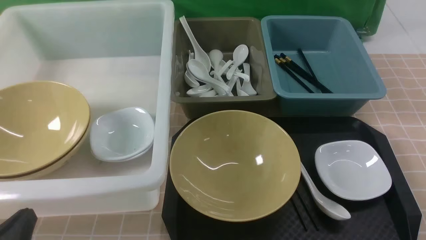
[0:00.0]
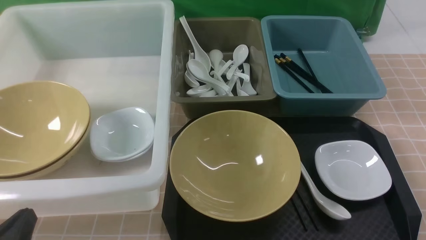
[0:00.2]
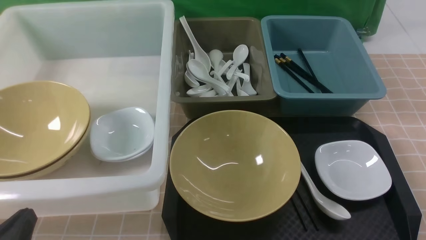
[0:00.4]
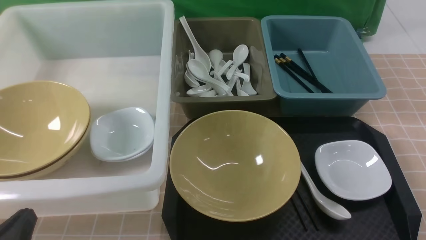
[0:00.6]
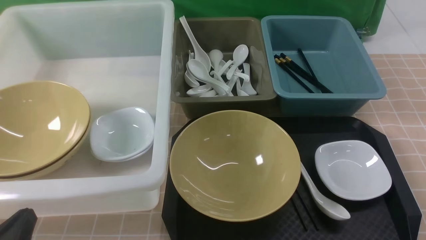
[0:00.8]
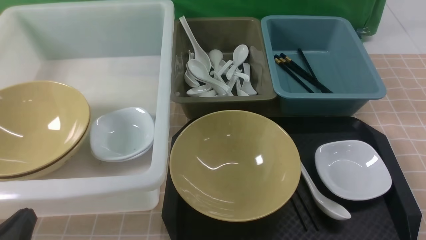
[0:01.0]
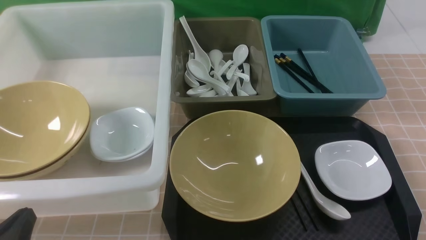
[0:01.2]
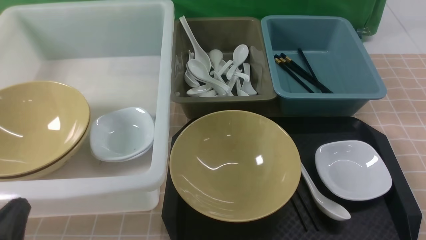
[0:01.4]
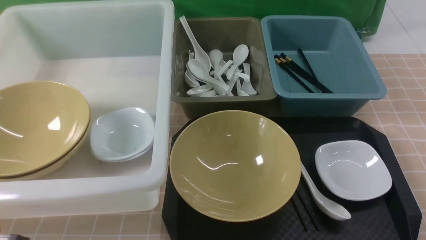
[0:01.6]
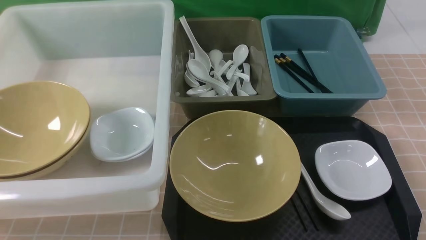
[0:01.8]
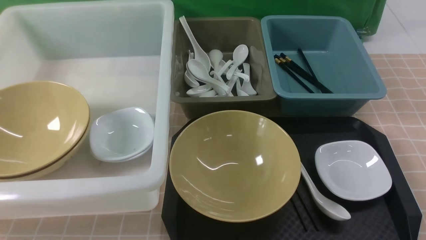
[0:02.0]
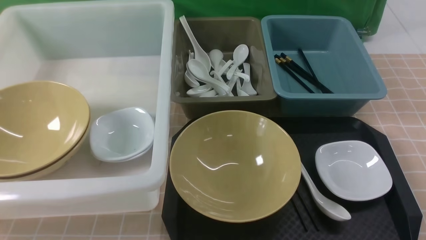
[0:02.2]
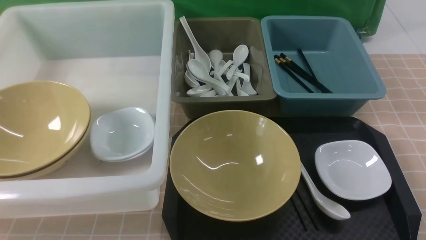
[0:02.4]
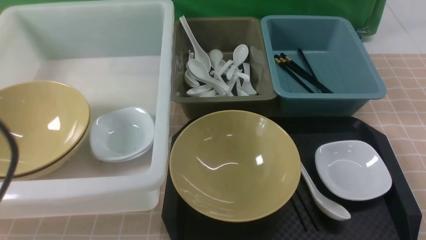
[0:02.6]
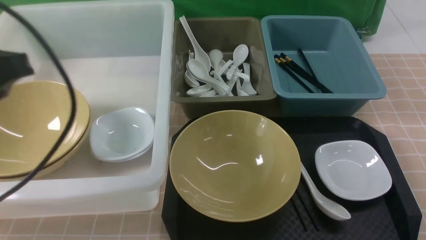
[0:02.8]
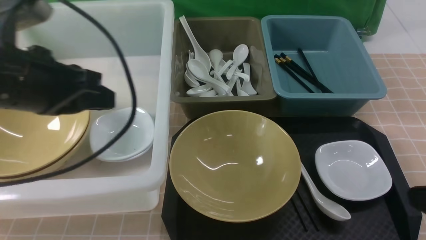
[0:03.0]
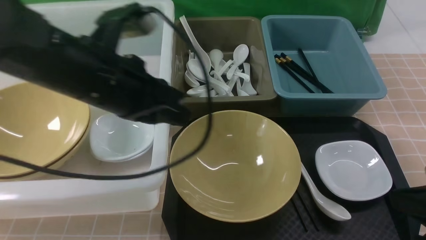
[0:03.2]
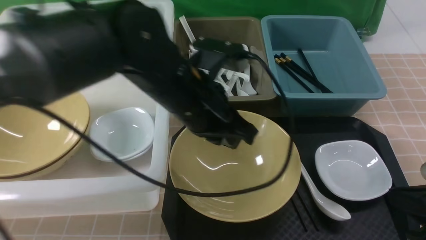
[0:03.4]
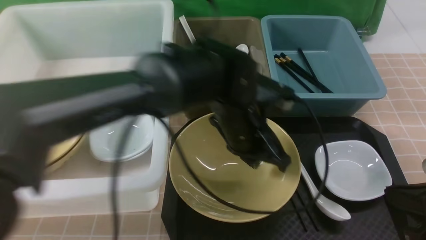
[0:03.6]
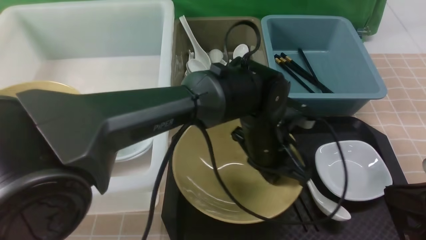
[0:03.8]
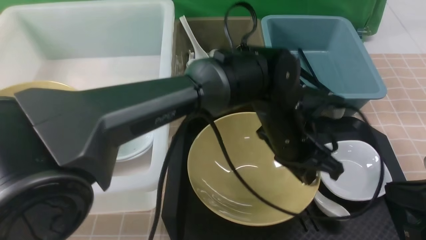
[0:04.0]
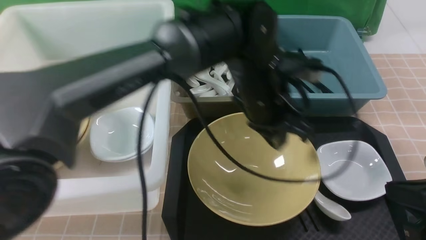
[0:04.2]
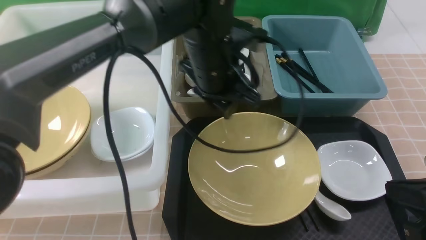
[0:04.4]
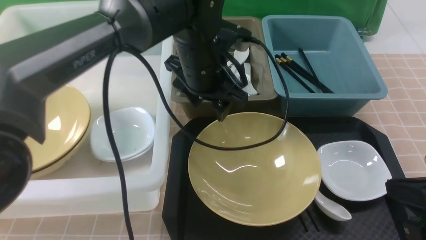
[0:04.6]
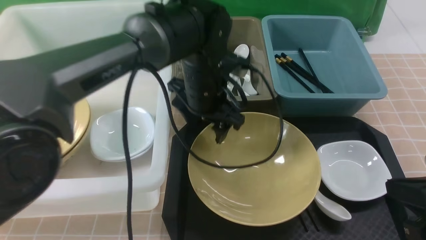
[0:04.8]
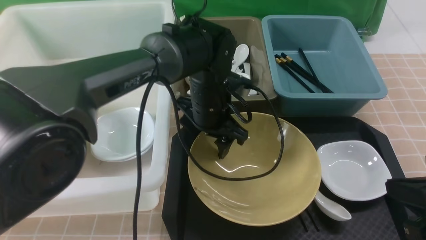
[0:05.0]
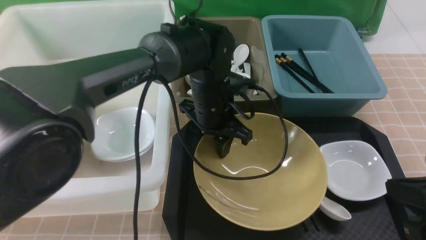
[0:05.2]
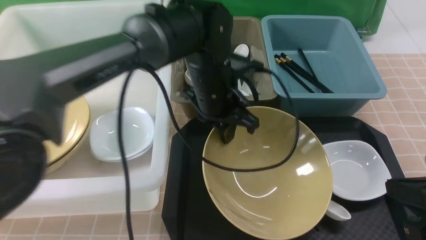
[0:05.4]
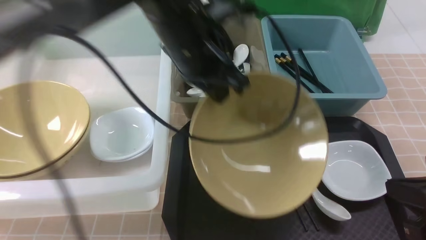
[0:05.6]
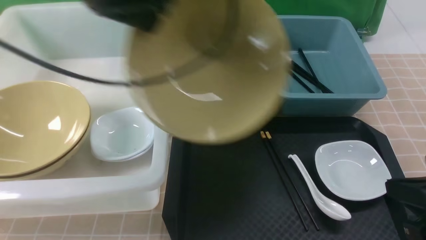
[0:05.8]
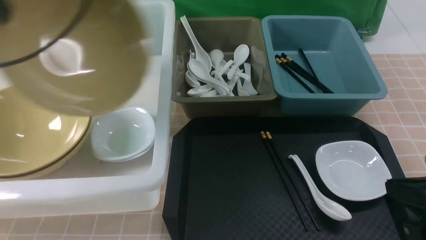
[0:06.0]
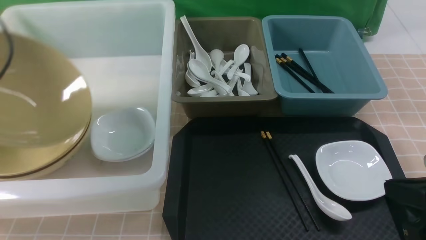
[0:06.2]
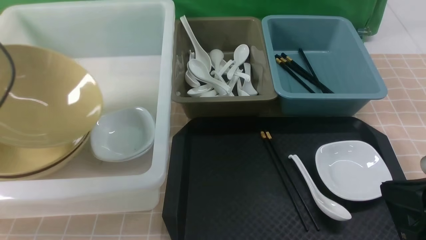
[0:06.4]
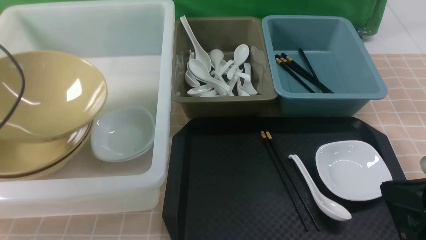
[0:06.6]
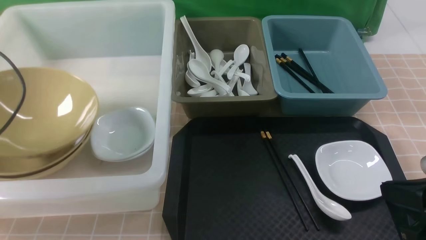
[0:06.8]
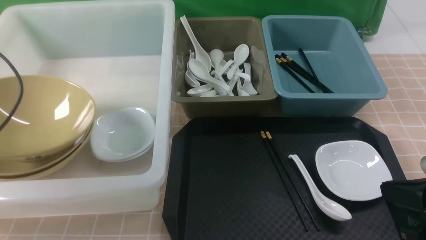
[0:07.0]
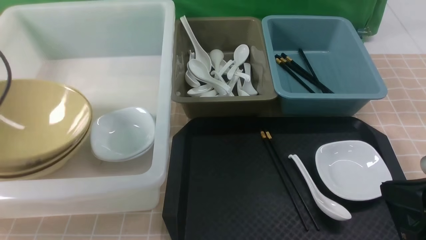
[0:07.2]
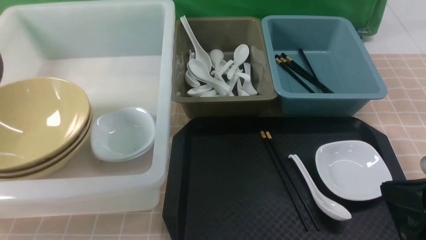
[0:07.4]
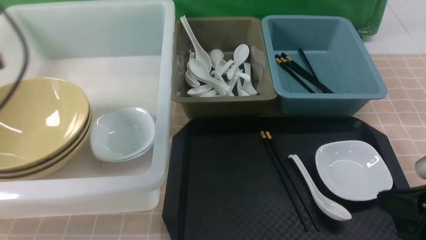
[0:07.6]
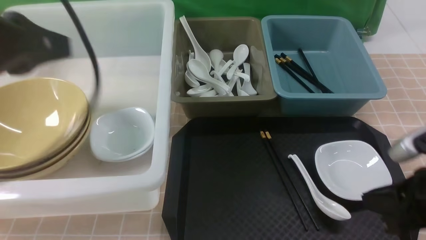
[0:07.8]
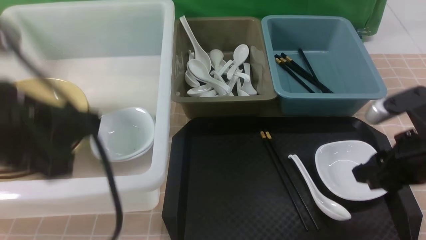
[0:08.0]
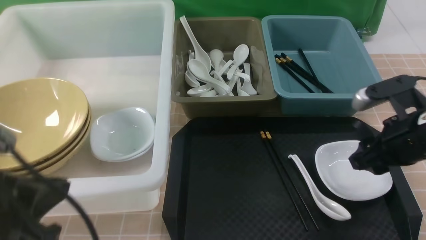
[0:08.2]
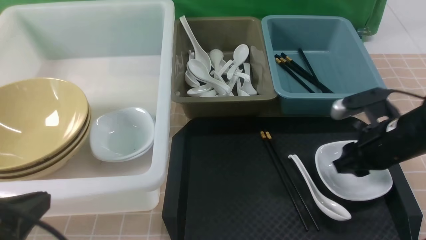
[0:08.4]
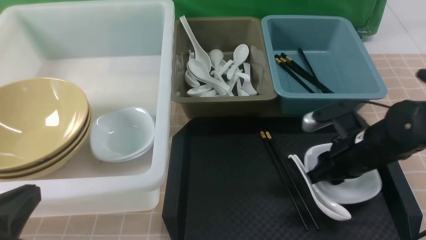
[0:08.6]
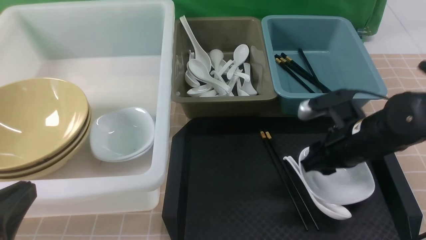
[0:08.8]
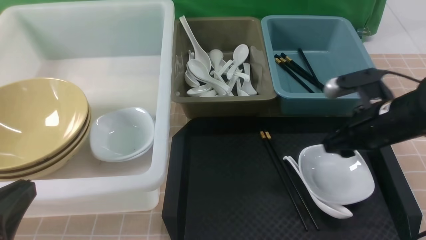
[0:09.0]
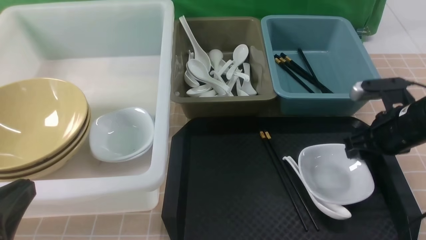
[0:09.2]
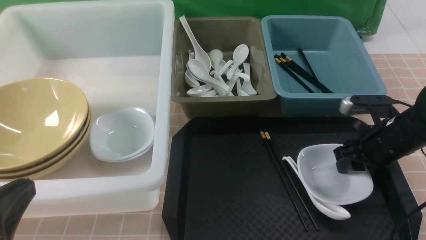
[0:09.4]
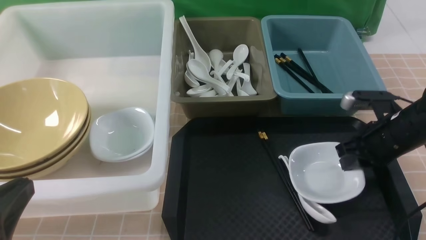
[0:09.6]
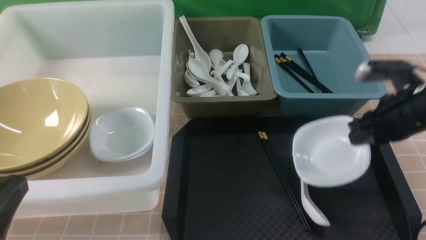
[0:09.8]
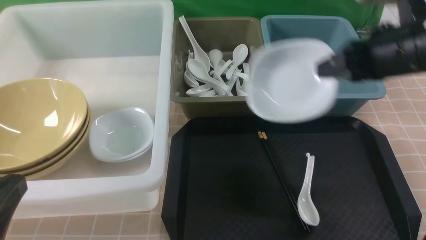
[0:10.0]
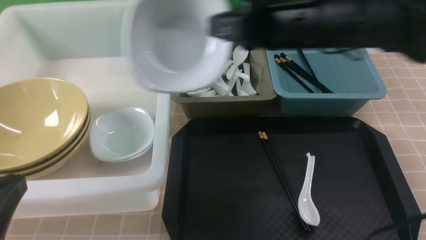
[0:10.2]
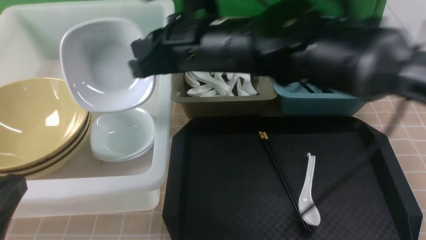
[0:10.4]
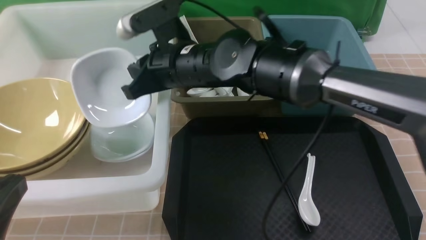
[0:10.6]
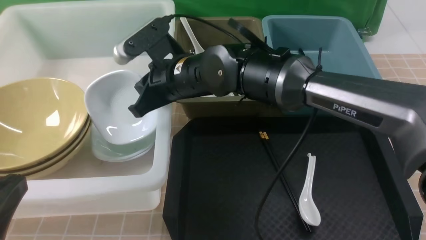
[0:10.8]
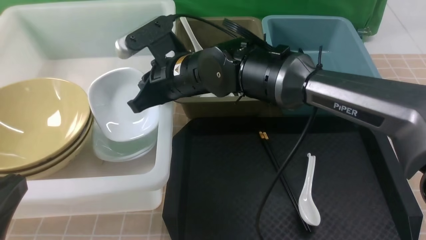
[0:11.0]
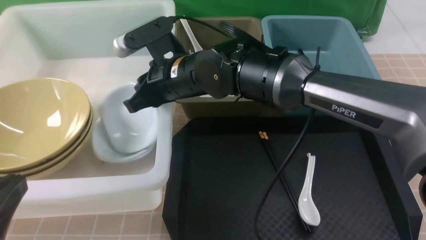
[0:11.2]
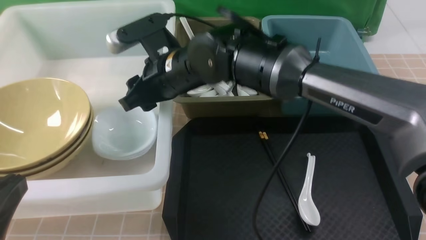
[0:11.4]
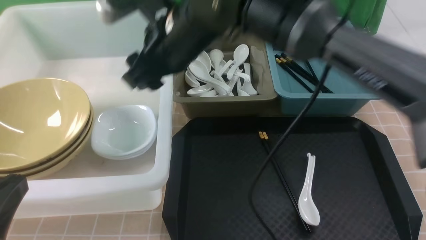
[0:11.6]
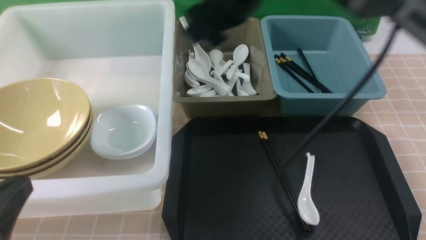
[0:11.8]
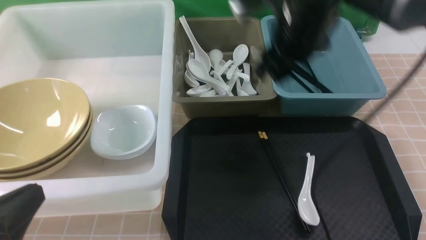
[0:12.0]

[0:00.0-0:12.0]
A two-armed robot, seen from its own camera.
Task of the whole recording: on brown table put chopsticks spoon bowls plates into blue grey white boxes.
Step, 0.0 to 5.6 s: use the left arm to grab the yellow noodle bowl on the left.
Step, 5.8 to 7.6 s: use the left arm to put the noodle bowl into the large storage box on the left.
Step, 7.8 to 9.8 s: use the right arm to grab the plate.
Step, 10.0 to 11.6 s: use the right arm to put the plate into the large storage box on the left.
1.6 to 3.0 s: The right gripper shifts about 10 cm upward and forward, and closes its fingers; the left gripper shifts approximately 20 cm forward and upward.
3.0 to 4.4 s: The left gripper shifts some 20 cm to the right and forward, and opens.
4.4 to 6.0 s: The left gripper goes roughly 30 cm to the left and upward, and closes its fingers.
6.0 to 7.6 s: The left gripper goes some 5 cm backward, travels downward and back again, roughly 10 cm each way, and opens.
7.6 to 9.0 s: The left gripper heads backward and downward, covering approximately 20 cm, and closes, while the right gripper moves forward, roughly 15 cm, and opens.
9.0 to 10.4 s: The right gripper goes roughly 25 cm to the left and upward, and closes its fingers.
10.4 to 12.0 s: The right gripper travels to the right by approximately 10 cm, and opens.

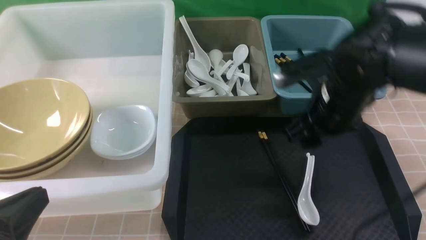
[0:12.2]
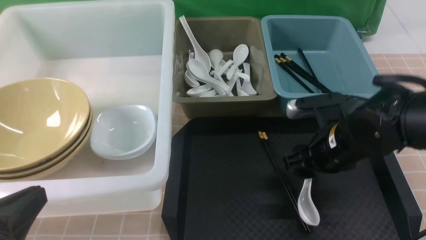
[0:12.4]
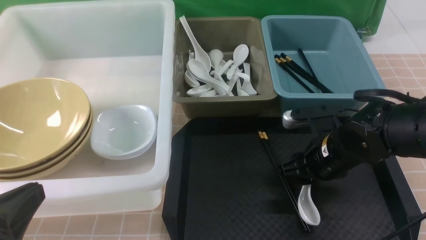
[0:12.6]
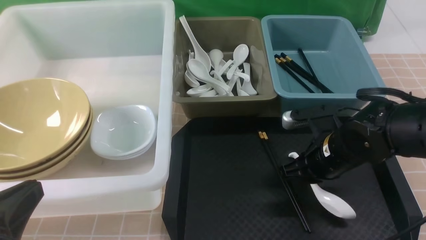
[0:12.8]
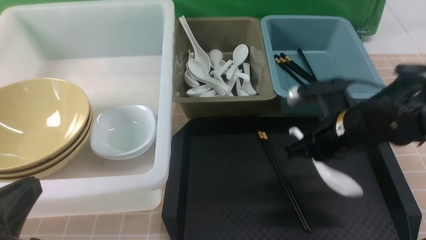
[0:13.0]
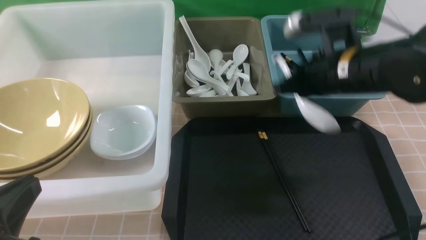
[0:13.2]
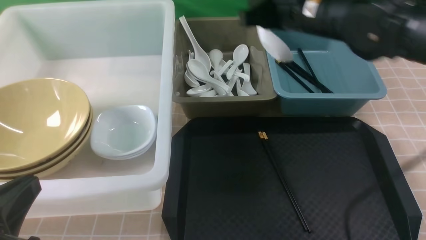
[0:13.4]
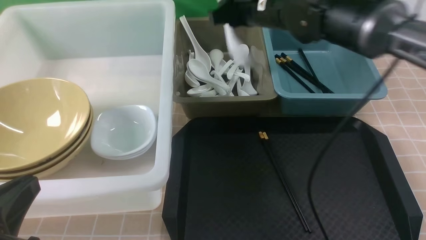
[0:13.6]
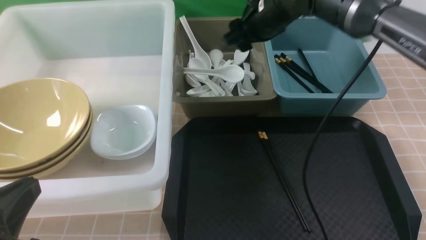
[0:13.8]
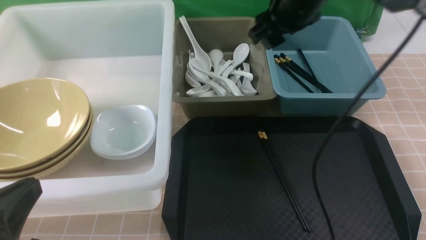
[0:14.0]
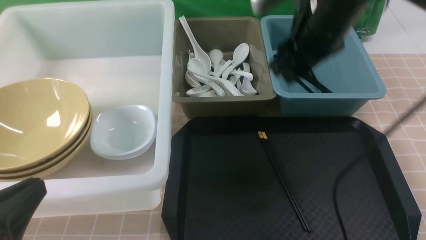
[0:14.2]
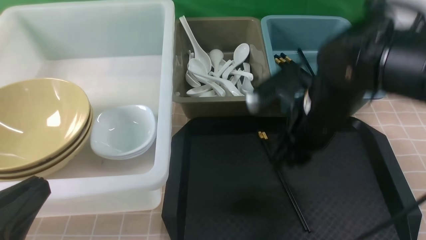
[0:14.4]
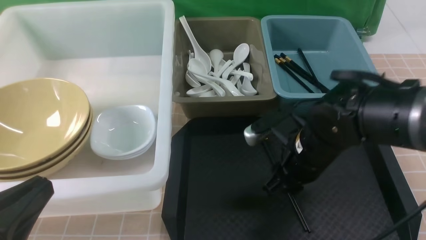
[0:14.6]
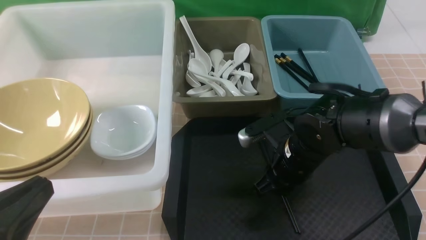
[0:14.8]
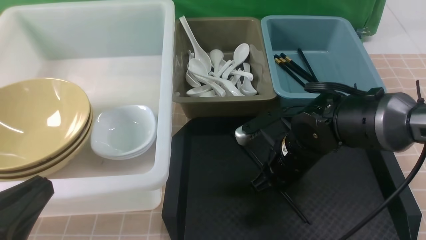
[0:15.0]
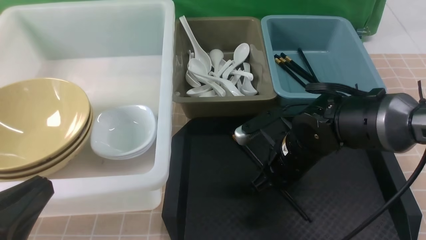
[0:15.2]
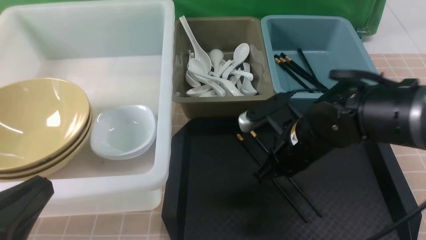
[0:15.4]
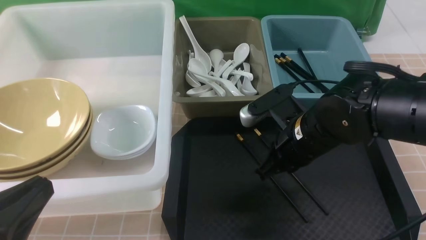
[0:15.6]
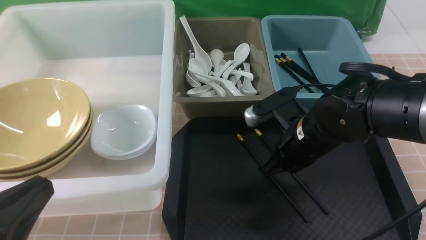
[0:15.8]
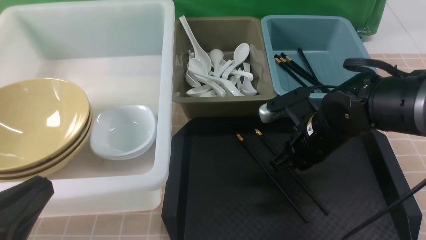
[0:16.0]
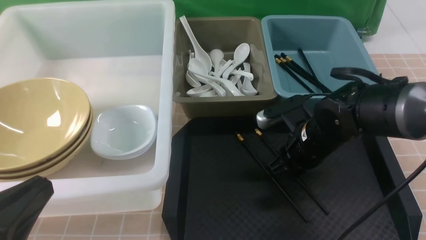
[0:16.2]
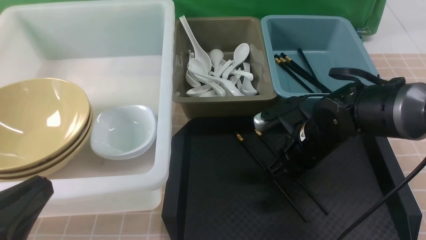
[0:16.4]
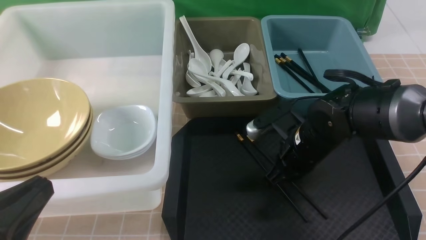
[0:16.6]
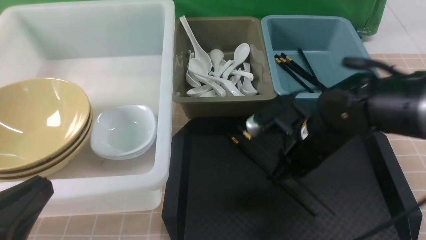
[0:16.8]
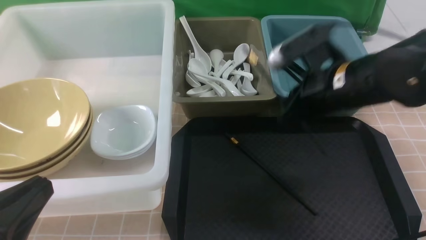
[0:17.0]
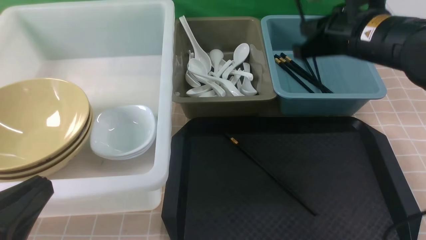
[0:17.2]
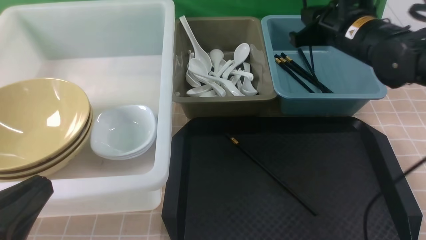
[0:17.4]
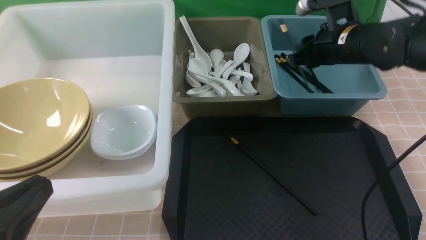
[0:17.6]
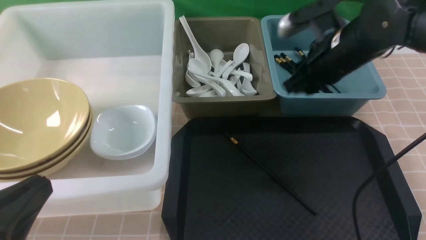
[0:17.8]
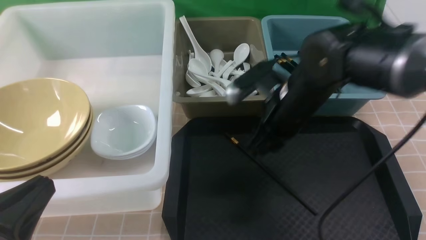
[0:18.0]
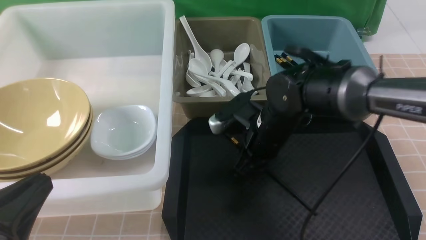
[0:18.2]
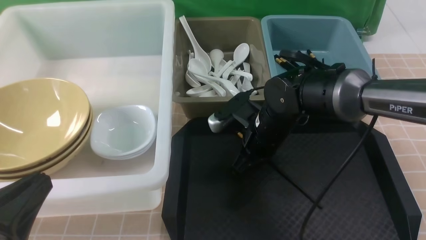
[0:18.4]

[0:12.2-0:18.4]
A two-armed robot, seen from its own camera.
Task of the whole recording: on brown table put chopsticks spoon bowls plates into blue grey white boxes.
Step, 12.2 to 13.0 s: use the right arm to grab the soup spoon in the middle.
Step, 13.2 to 14.0 s: use the right arm to put the soup spoon into the small storage box in the middle.
Step, 14.4 to 16.8 s: use the right arm to grab a chopstick.
Step, 17.0 to 17.6 s: use the right arm to put a chopstick into the small storage box on the right.
12.2 to 13.8 s: The right gripper moves forward, upward and to the left, roughly 15 cm, and closes and opens again.
13.8 to 15.4 s: The right gripper is displaced backward and downward by some 20 cm, and closes.
15.4 to 16.8 s: The grippers move only a little.
16.8 to 18.4 s: The right gripper is displaced to the left by some 5 cm, and opens and closes again.
